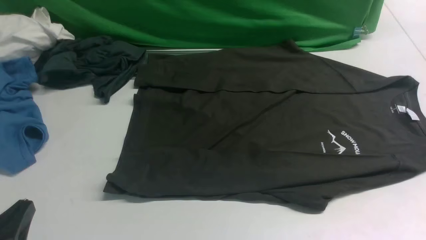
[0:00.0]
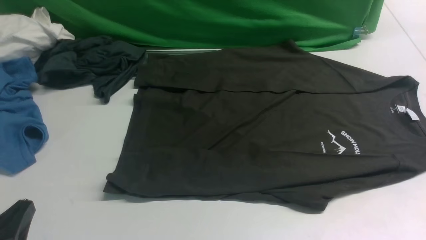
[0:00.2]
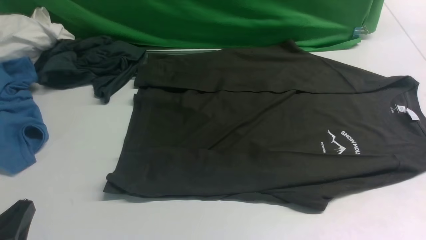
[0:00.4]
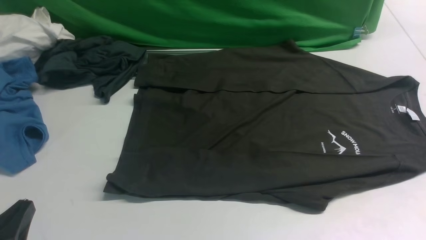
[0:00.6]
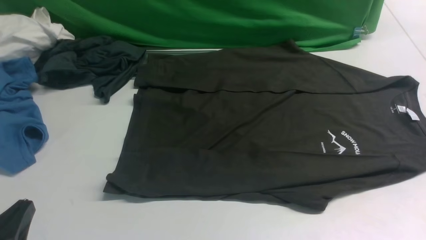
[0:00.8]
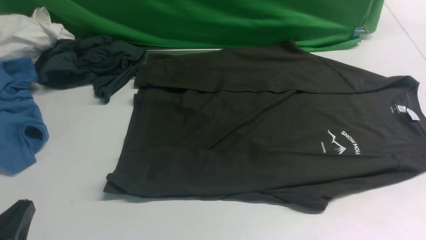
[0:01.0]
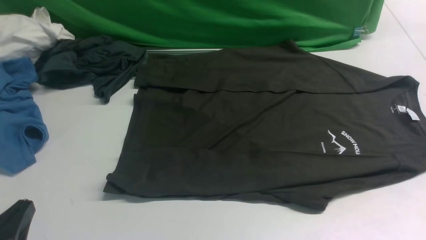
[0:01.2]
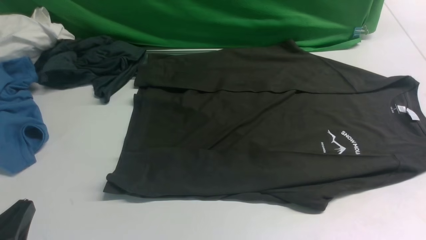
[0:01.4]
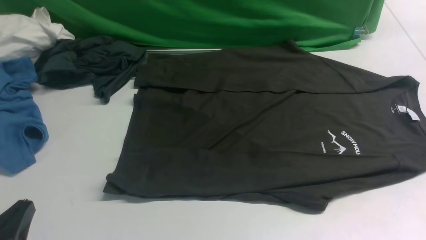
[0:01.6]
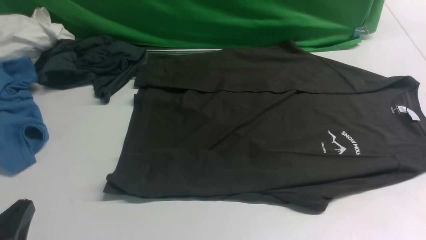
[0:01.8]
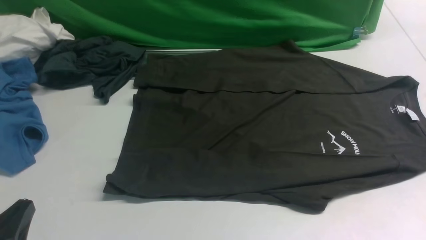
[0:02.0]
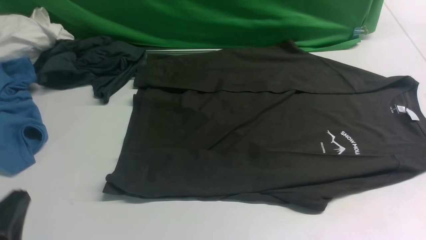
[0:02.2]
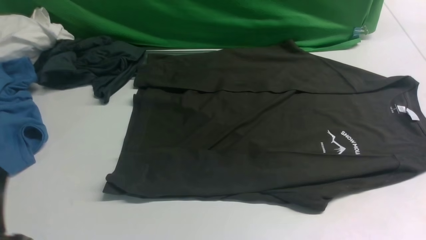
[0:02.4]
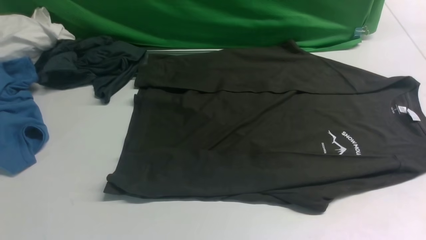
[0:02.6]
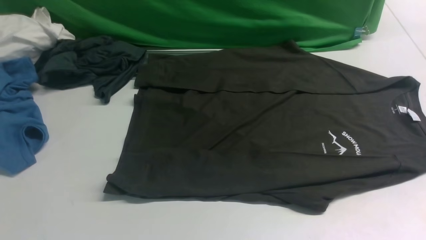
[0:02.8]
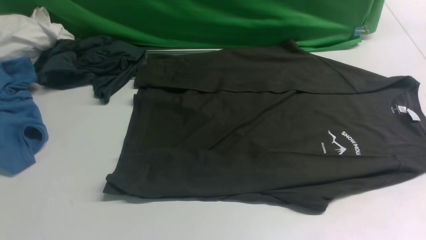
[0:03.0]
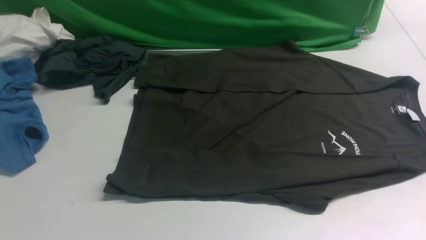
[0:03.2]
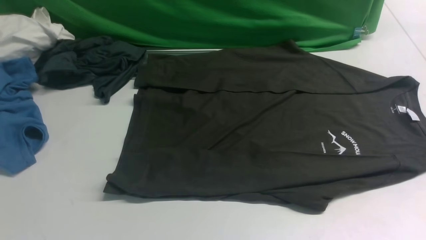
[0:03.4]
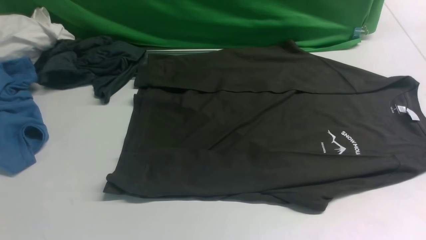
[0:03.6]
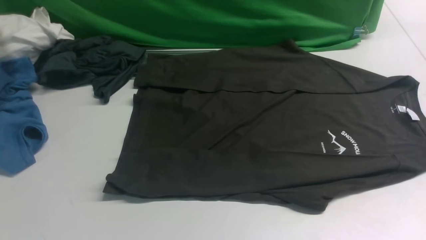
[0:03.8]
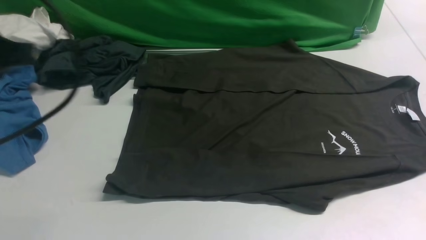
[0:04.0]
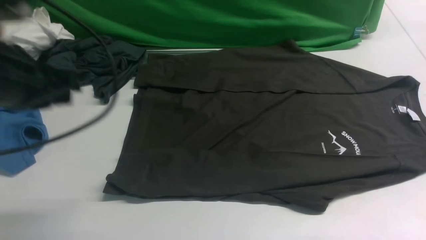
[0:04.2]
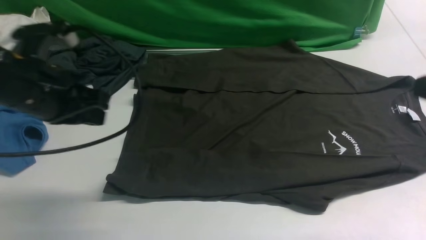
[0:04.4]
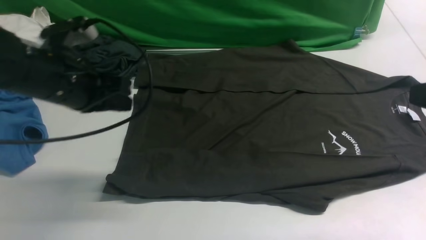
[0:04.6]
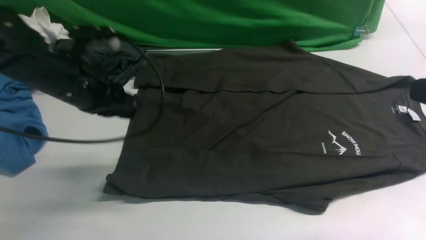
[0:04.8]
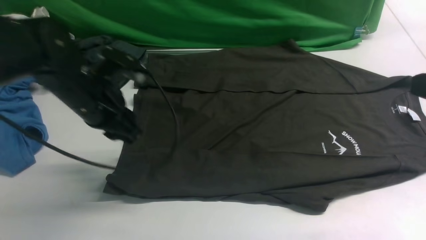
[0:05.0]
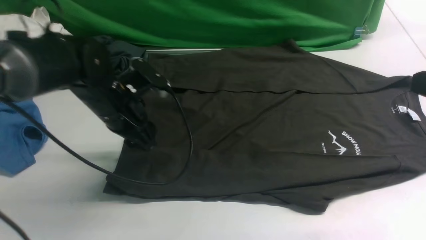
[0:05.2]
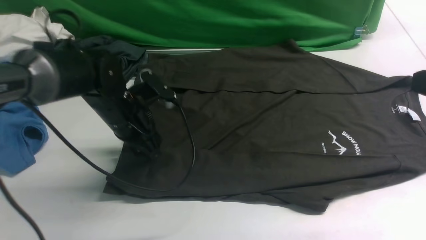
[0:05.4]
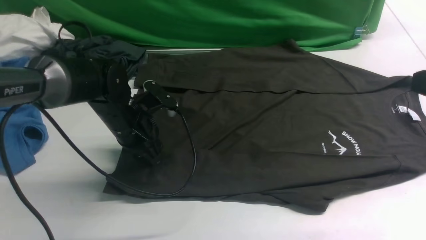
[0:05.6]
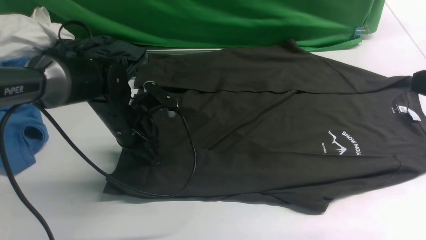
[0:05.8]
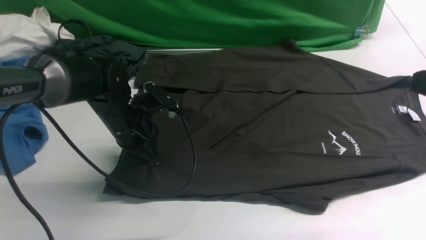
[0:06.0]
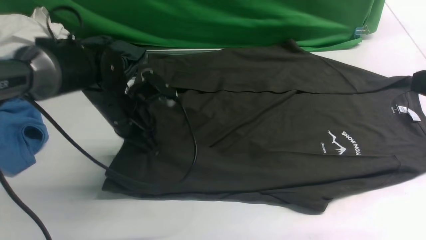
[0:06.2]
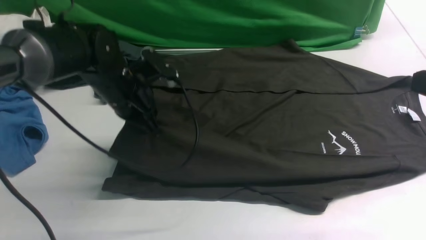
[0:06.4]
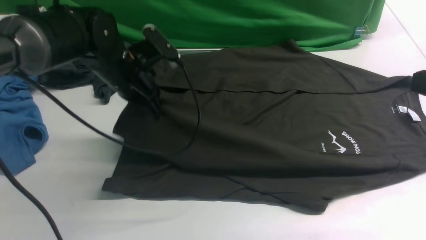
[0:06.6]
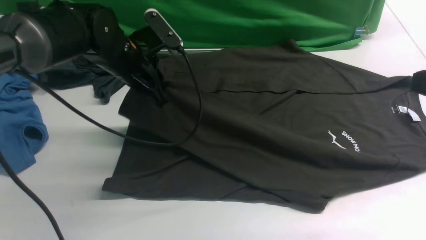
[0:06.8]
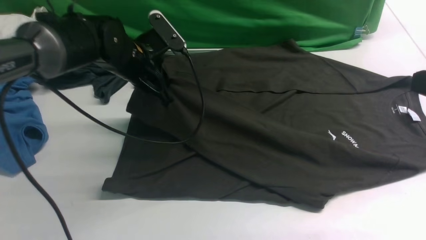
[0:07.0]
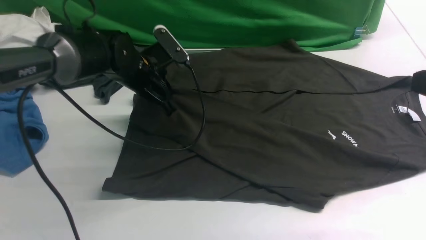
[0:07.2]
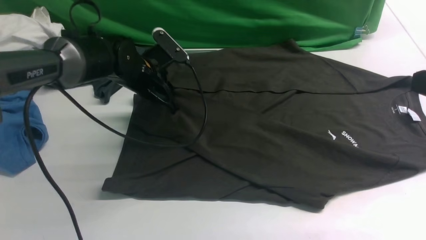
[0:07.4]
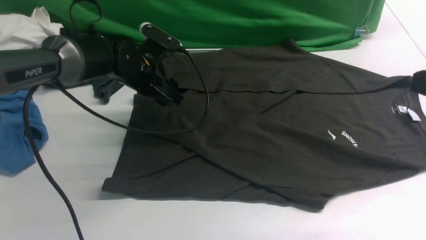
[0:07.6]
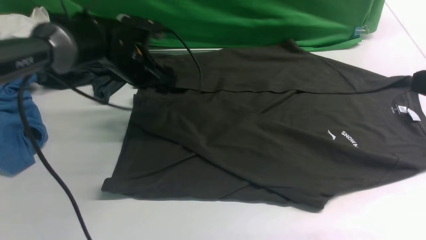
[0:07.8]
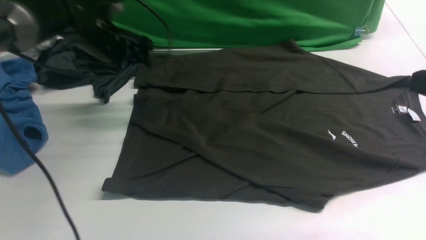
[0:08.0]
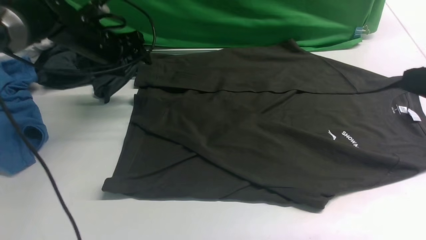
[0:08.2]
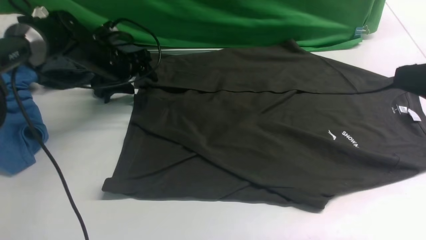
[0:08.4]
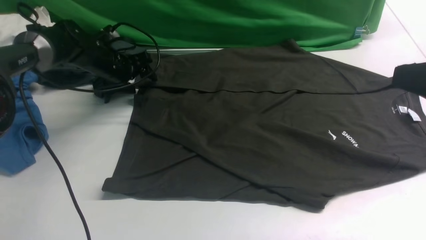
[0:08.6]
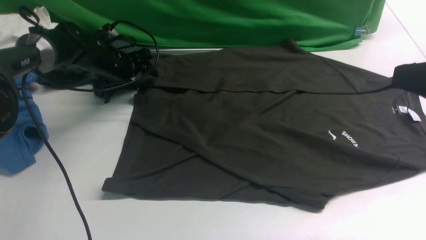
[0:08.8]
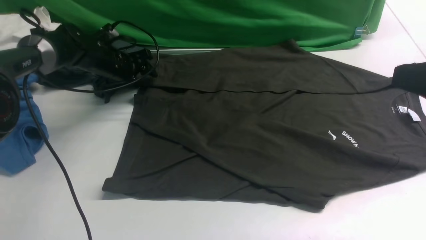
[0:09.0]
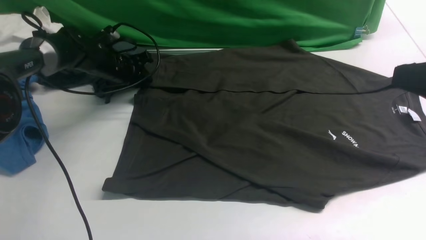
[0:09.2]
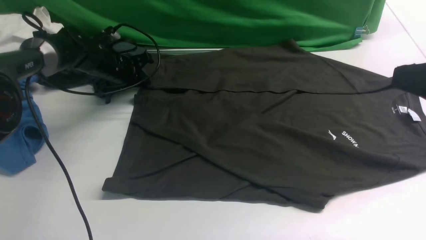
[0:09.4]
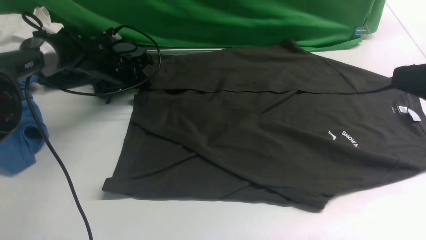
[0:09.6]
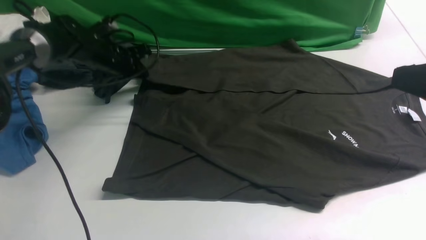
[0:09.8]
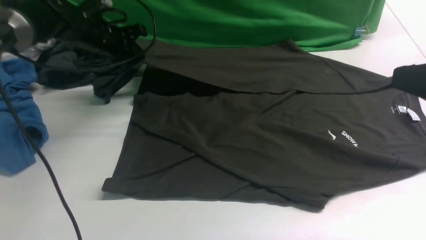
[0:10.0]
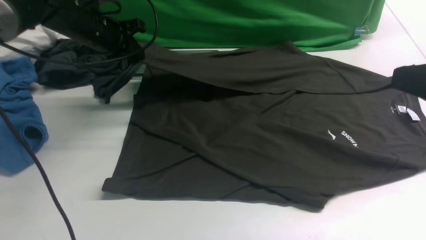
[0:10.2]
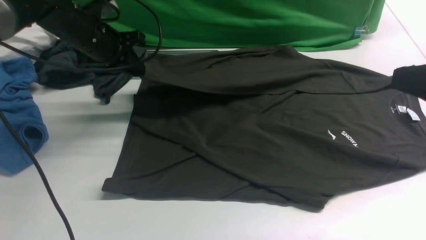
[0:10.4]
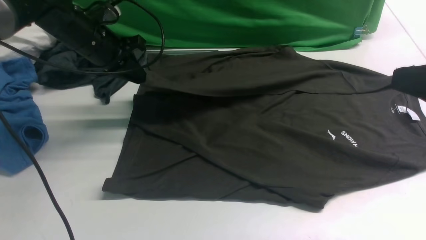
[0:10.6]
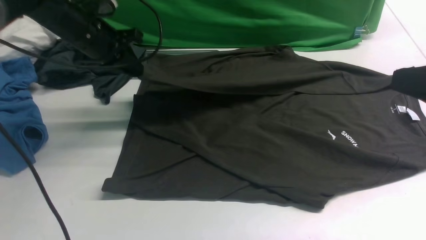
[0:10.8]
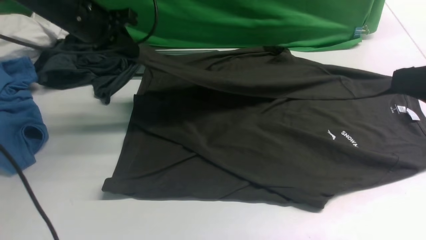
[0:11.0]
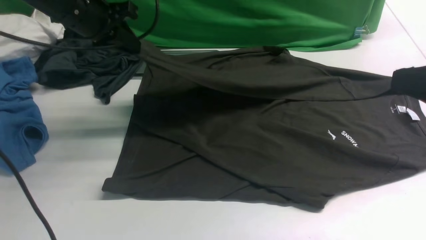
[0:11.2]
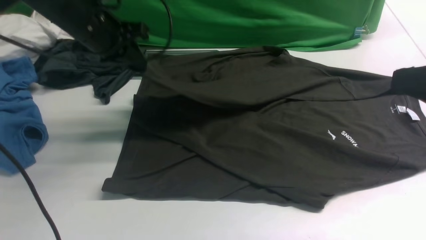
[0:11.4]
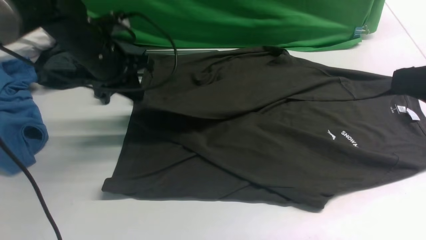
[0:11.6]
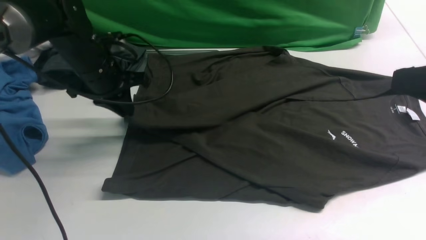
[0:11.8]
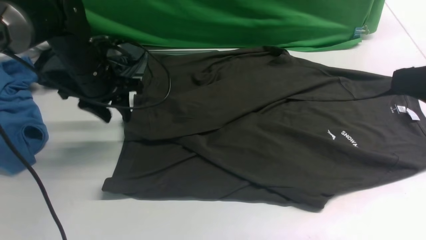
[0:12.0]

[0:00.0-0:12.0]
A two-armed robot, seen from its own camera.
Step, 0:00.0 to 0:06.2: use the left arm to clamp the cuff closest to it.
Step, 0:06.4 to 0:07.6: use the left arm to drag and place the cuff at the centered position on the left edge of the fabric.
Step, 0:07.8 to 0:09.6: use the left arm to clamp the cuff farthest from it.
Step, 0:10.0 to 0:11.8: use the left arm to drag and drop the cuff onto the cuff closest to the left arm.
0:00.0 to 0:01.6: The two grippers keep their place.
0:01.6 to 0:03.0: The left gripper goes roughly 10 cm upward.
0:03.0 to 0:04.4: The left gripper heads forward, covering about 25 cm.
0:04.4 to 0:06.0: The left gripper moves downward, forward and to the right, some 15 cm, and opens and closes again.
0:06.0 to 0:07.6: The left gripper shifts some 10 cm forward, and opens its fingers.
0:07.6 to 0:09.0: The left gripper heads to the left, forward and downward, covering some 15 cm.
0:09.0 to 0:10.4: The left gripper travels upward and backward by about 10 cm, and closes.
0:10.4 to 0:12.0: The left gripper travels backward by about 5 cm, goes upward and returns, roughly 5 cm each way, and opens up.

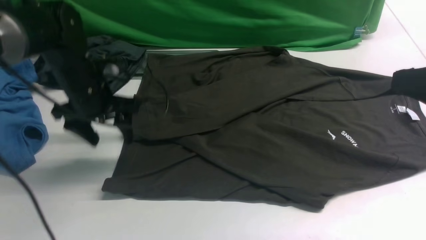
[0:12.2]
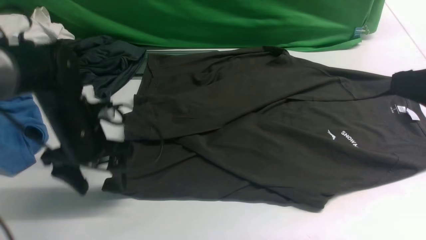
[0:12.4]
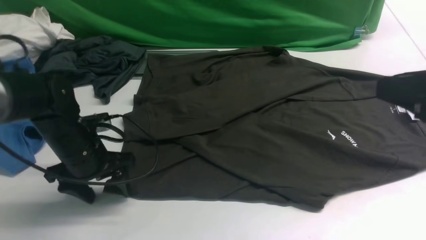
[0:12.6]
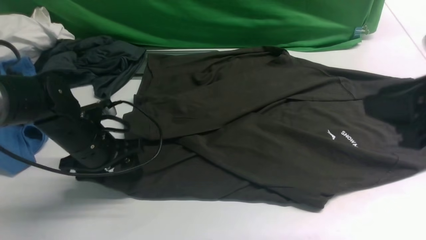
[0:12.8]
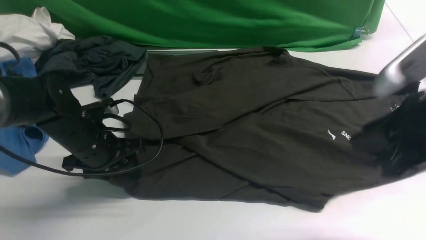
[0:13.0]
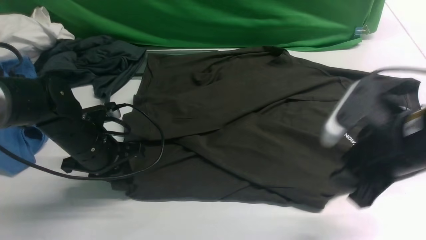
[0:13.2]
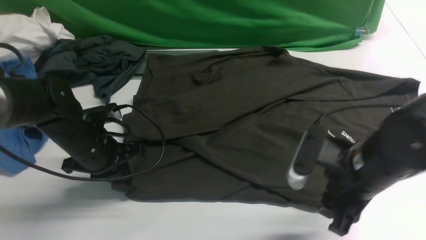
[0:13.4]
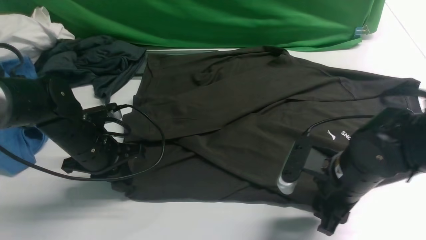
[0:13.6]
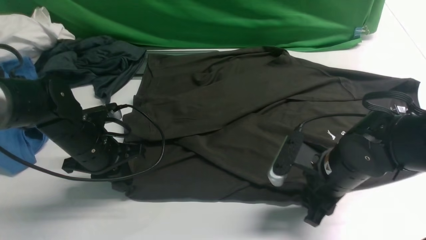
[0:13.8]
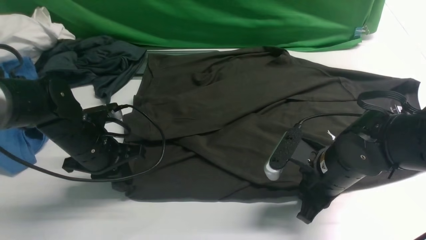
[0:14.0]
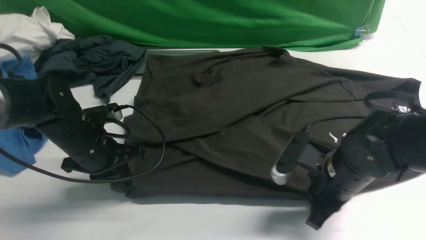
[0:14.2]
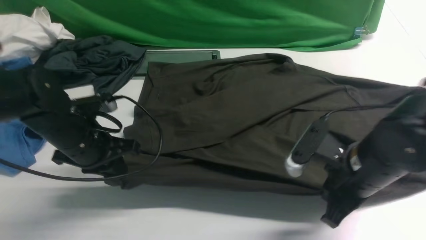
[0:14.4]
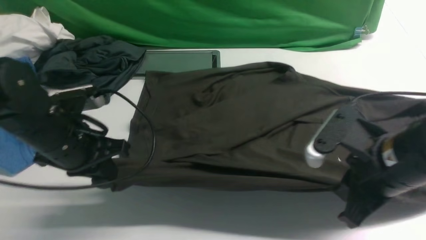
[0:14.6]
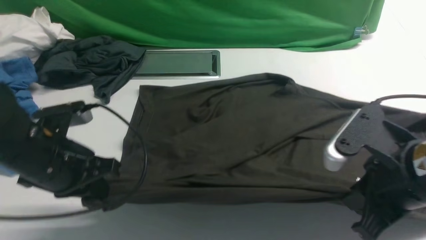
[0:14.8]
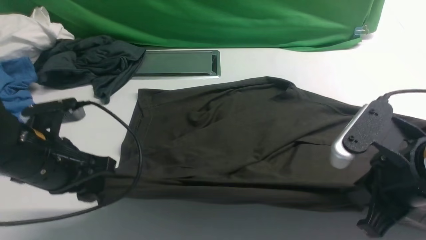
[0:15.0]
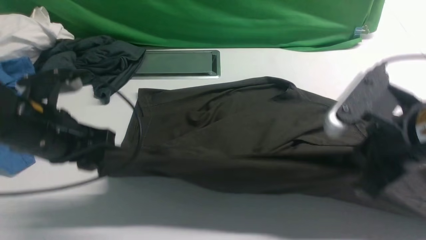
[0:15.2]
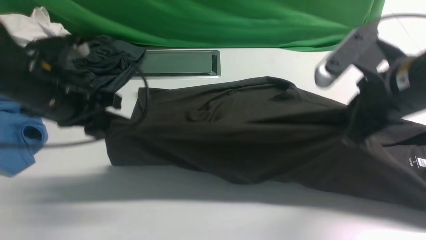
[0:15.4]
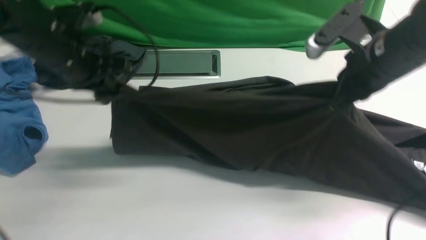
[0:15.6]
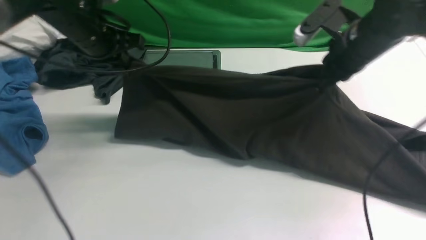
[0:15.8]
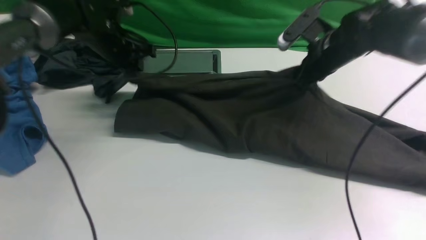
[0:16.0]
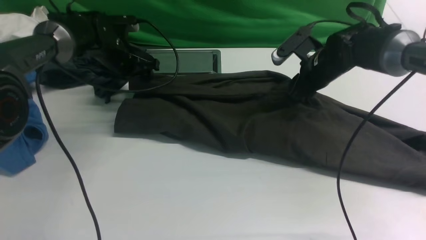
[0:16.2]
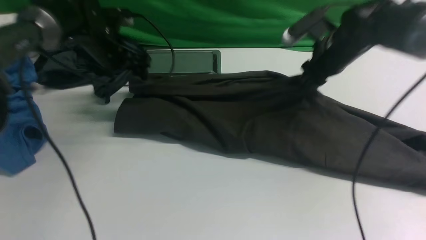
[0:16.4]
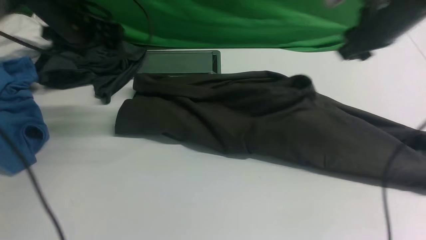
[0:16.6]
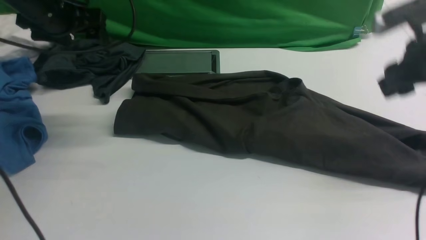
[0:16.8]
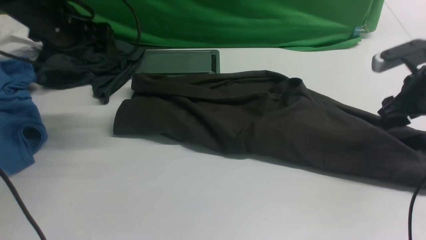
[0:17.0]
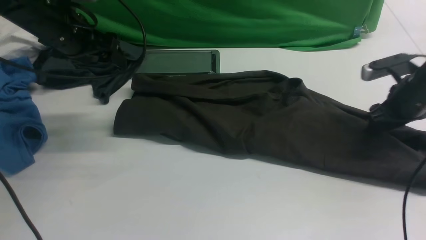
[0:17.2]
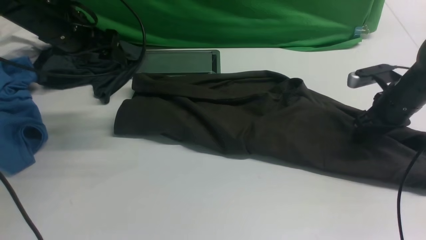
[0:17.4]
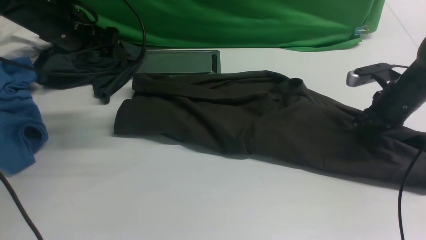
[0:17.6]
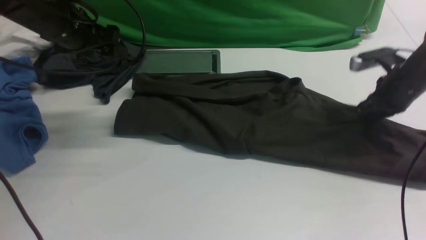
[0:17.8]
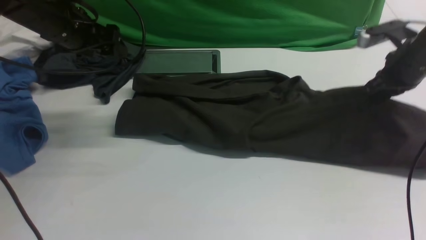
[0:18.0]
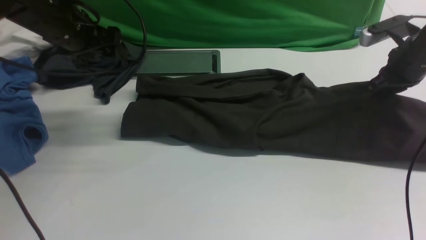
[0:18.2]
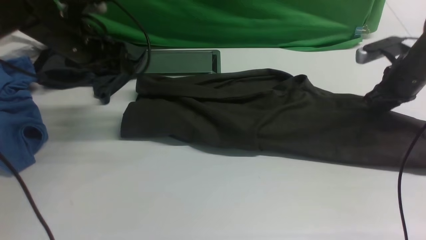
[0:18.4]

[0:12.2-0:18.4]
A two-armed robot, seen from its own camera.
Step, 0:12.2 to 0:14.2: use both arms simultaneously to clamp the lower edge of the clothing fabric.
0:12.2 to 0:13.8: The right gripper shifts about 25 cm downward and to the left, while the left gripper travels backward by approximately 5 cm, and closes its fingers.
0:13.8 to 0:15.4: Both grippers move upward, approximately 15 cm. The right gripper closes its fingers.
0:15.4 to 0:16.8: The right gripper is displaced to the right and forward by roughly 15 cm, and opens its fingers, while the left gripper heads forward, covering approximately 15 cm, and opens up.
0:16.8 to 0:18.4: The left gripper moves downward, about 5 cm. Meanwhile the right gripper goes approximately 10 cm forward and downward, and closes up.
